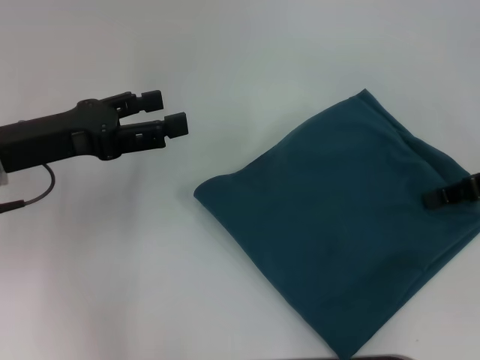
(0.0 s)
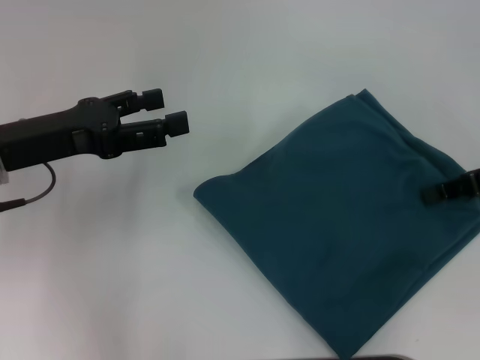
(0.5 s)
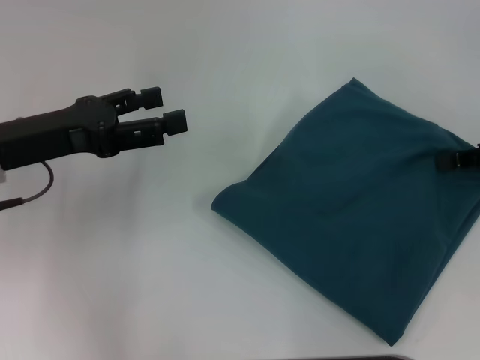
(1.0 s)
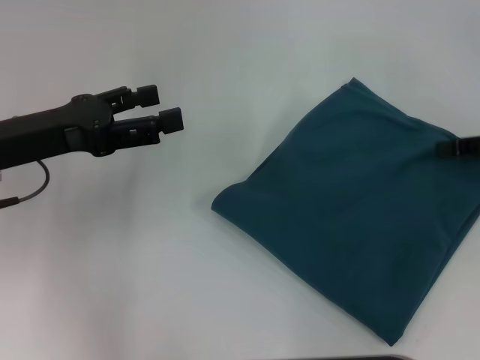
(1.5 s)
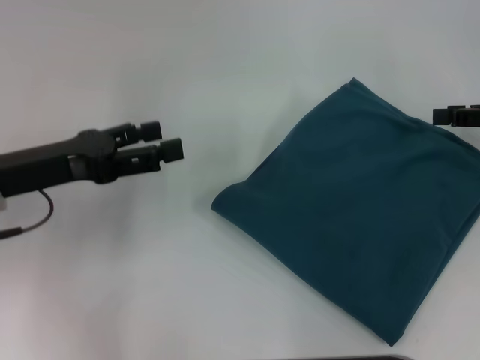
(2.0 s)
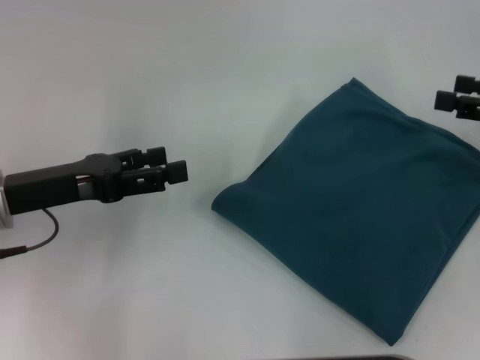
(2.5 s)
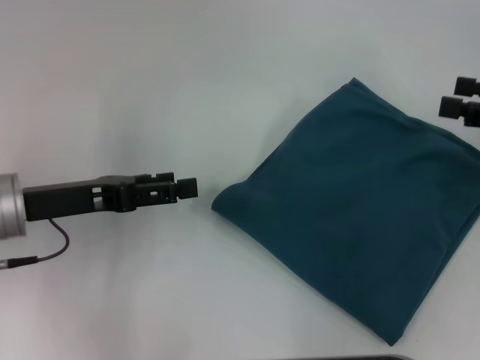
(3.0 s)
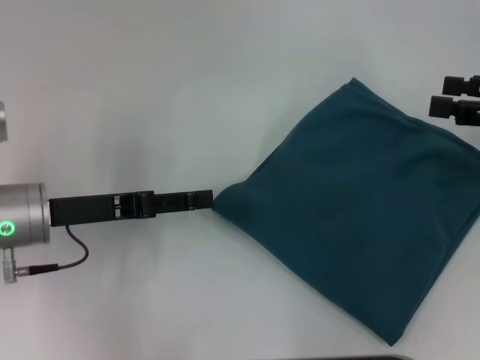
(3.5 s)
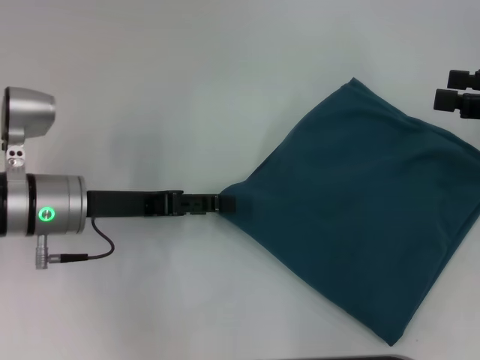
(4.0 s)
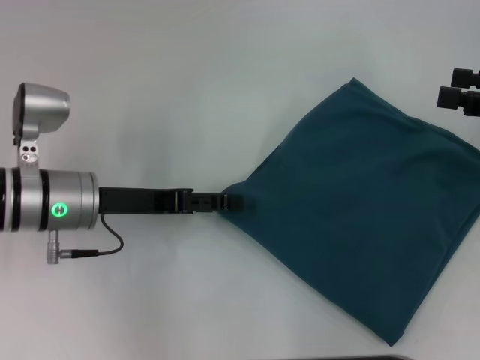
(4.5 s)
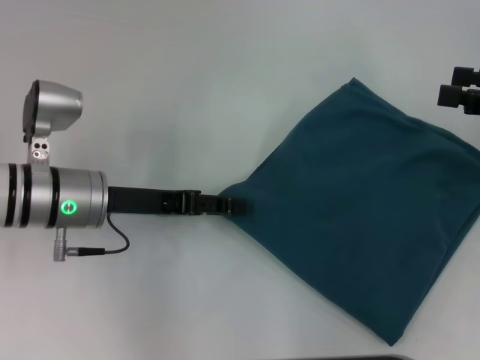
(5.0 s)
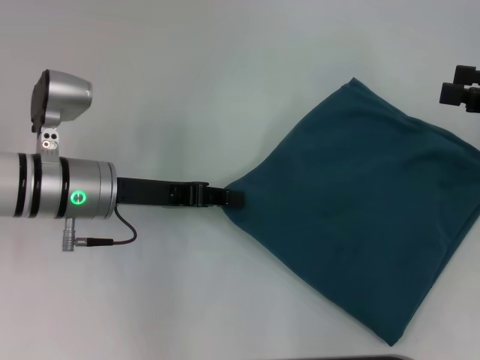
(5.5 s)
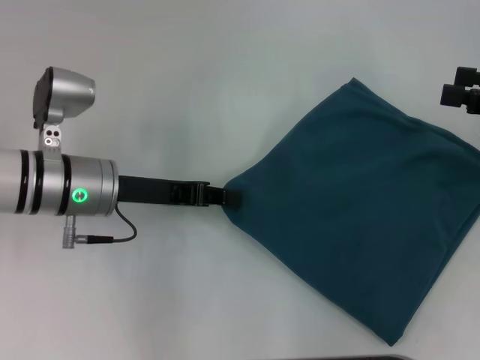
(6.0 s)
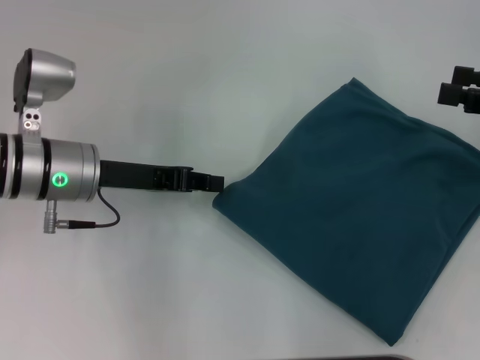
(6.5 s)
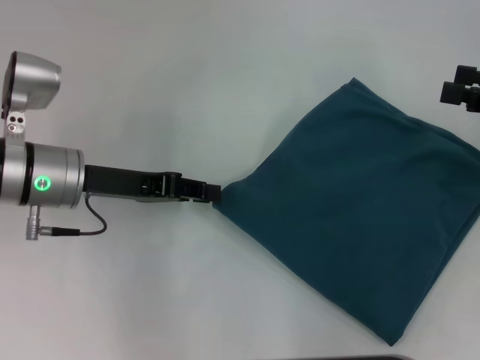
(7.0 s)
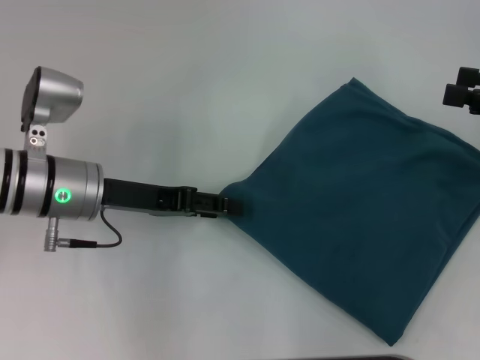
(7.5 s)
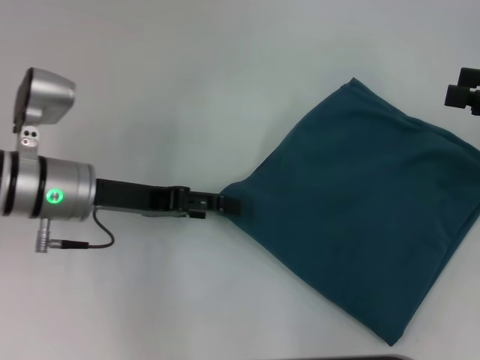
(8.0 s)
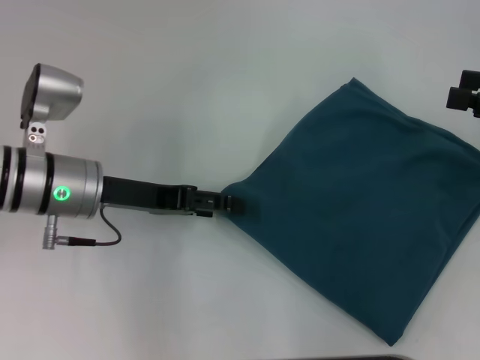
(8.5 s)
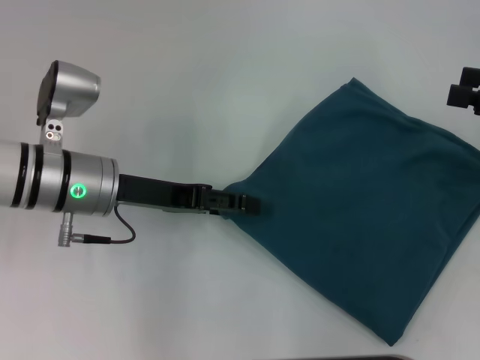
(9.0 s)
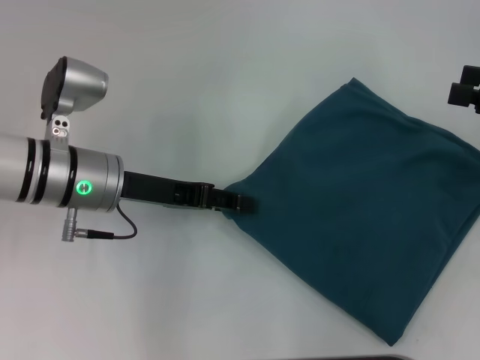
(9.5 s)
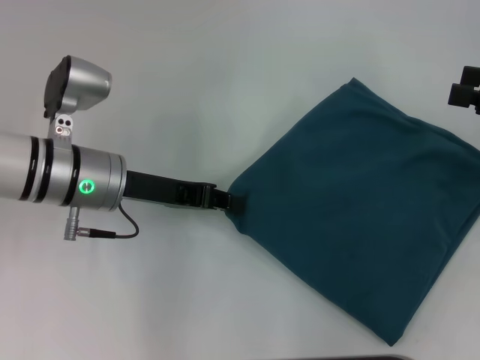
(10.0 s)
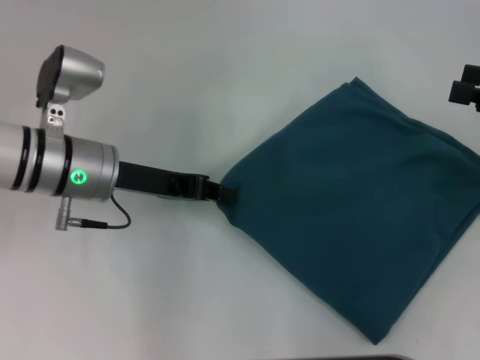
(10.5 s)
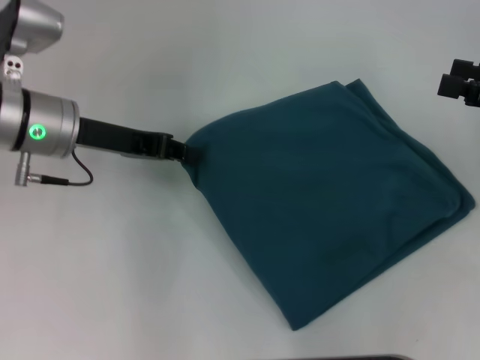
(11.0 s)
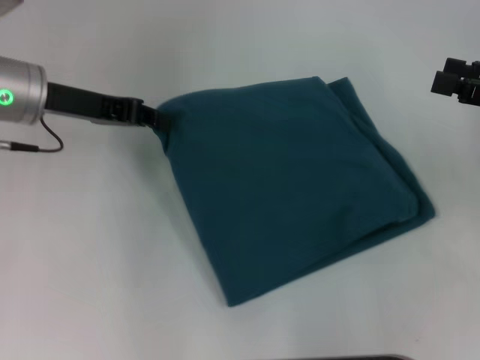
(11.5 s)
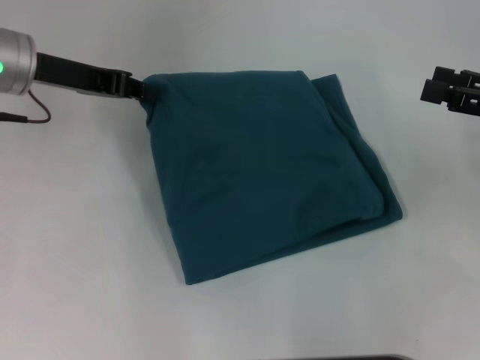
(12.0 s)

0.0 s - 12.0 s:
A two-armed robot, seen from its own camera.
2.0 s - 4.0 s: The left gripper moves to the right, about 5 cm; the right gripper opens up.
4.0 s - 6.0 s: The left gripper closes its fingers.
6.0 s - 8.0 s: The left gripper opens.
8.0 s - 10.0 s: The left gripper closes.
10.0 s - 12.0 s: The left gripper shifts roughly 15 cm forward, upward and to the left.

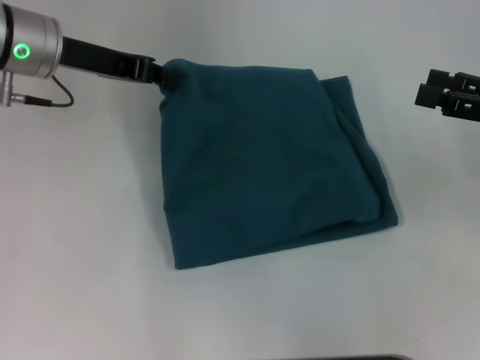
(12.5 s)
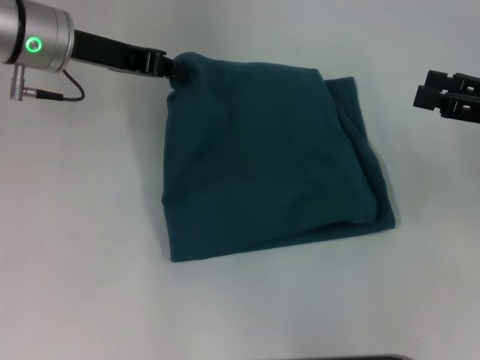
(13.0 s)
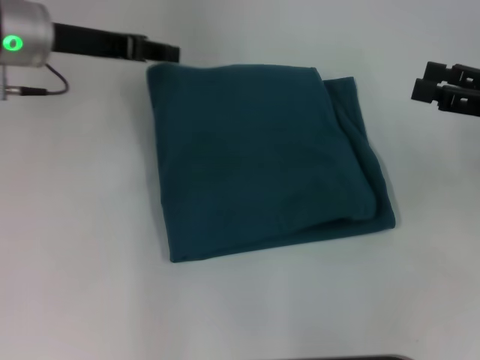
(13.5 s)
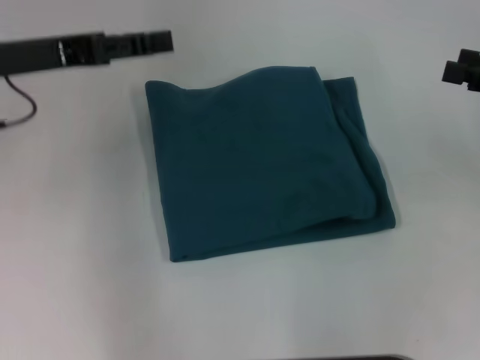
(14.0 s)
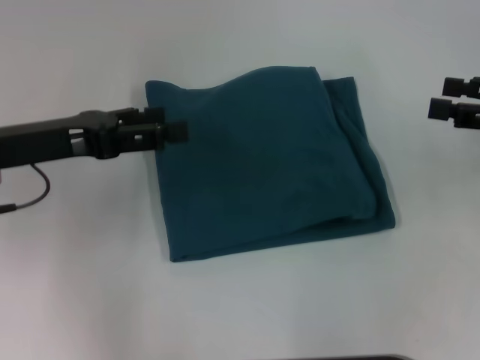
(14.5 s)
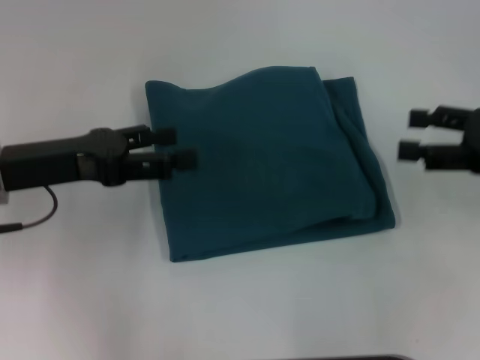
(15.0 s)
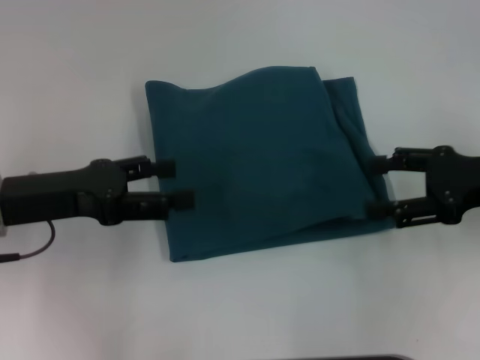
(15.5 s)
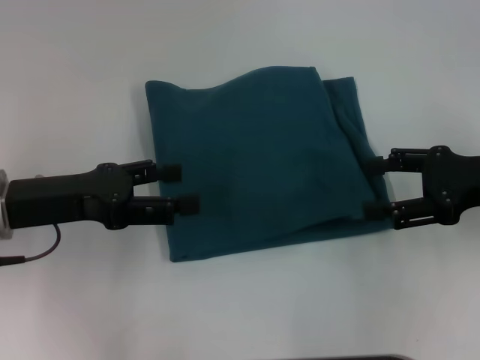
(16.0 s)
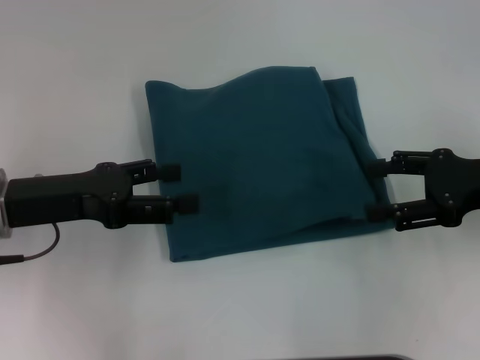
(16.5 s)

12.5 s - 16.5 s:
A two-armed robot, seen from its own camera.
12.5 s - 14.5 s: The left gripper moves backward, about 10 cm, and opens up.
14.5 s - 16.5 s: The right gripper shifts about 5 cm to the left.

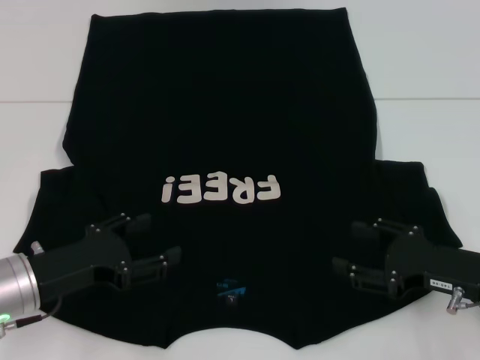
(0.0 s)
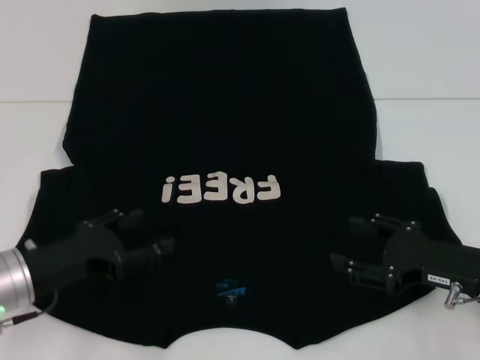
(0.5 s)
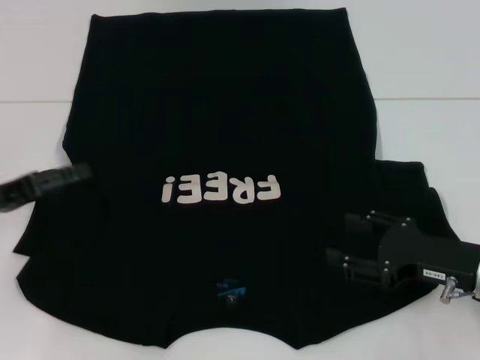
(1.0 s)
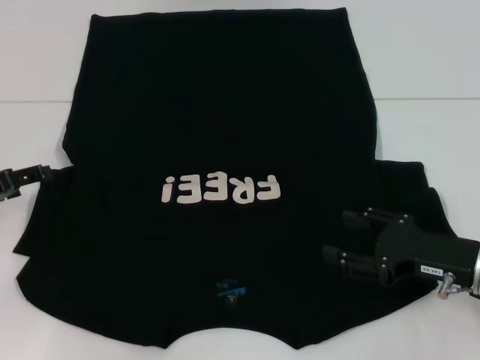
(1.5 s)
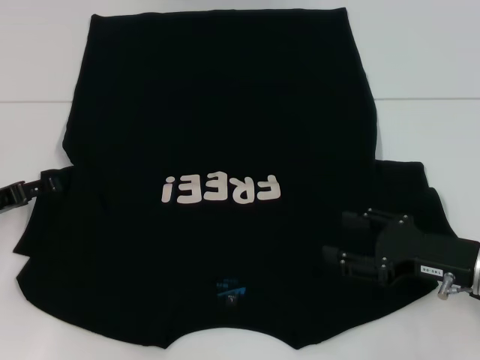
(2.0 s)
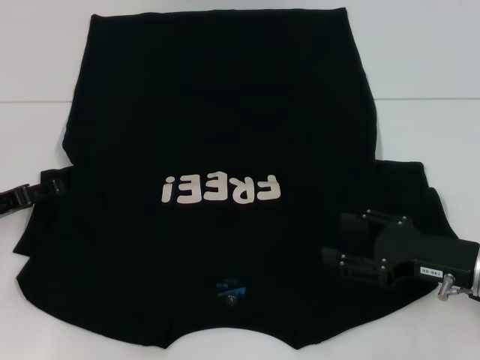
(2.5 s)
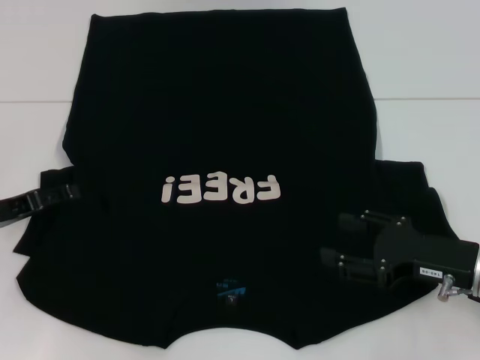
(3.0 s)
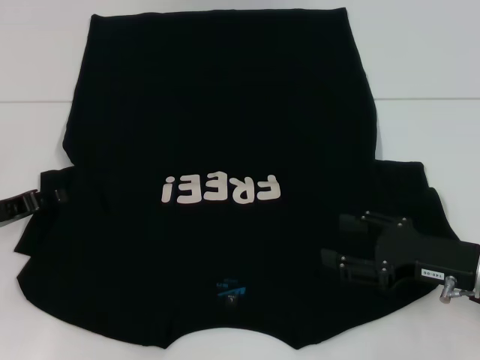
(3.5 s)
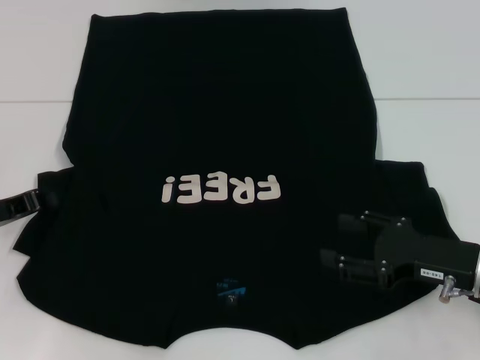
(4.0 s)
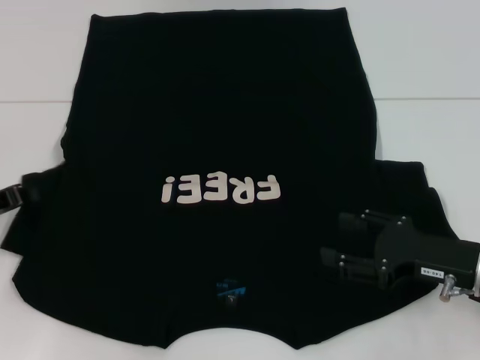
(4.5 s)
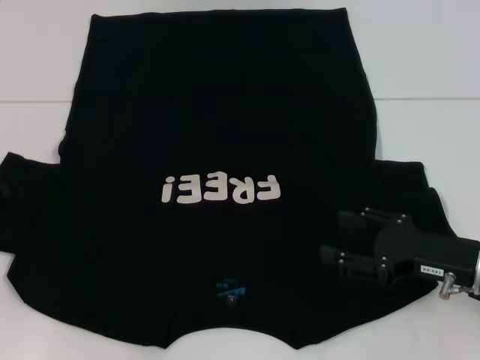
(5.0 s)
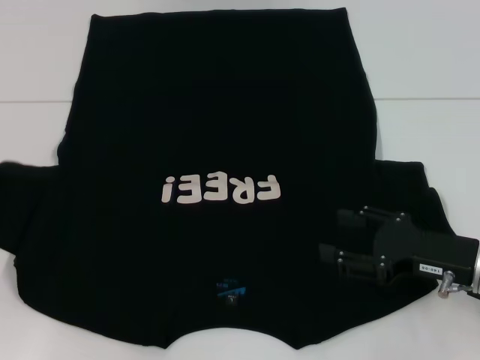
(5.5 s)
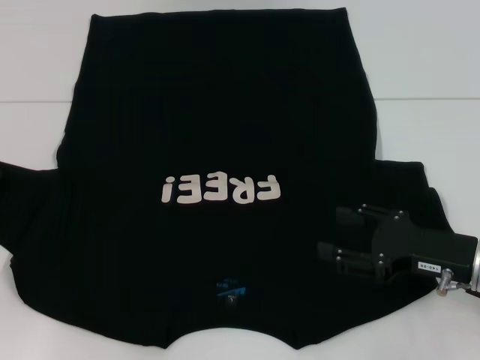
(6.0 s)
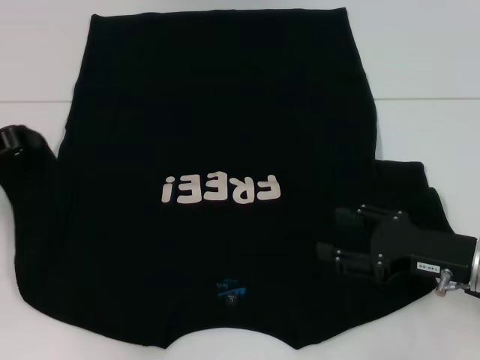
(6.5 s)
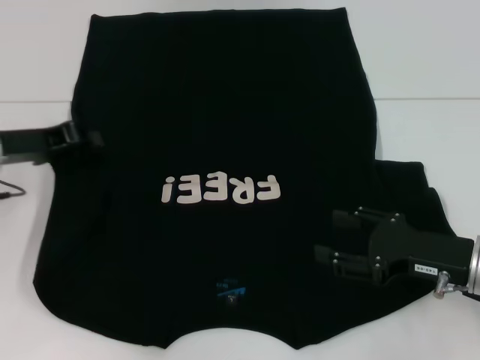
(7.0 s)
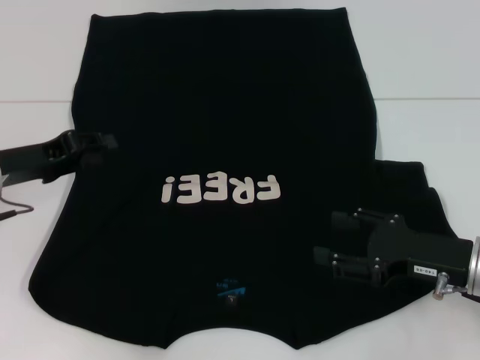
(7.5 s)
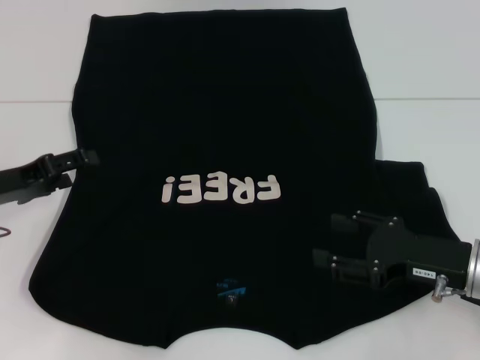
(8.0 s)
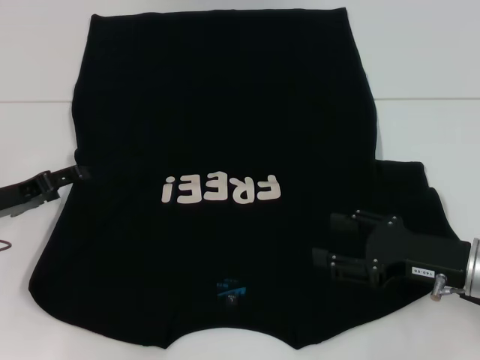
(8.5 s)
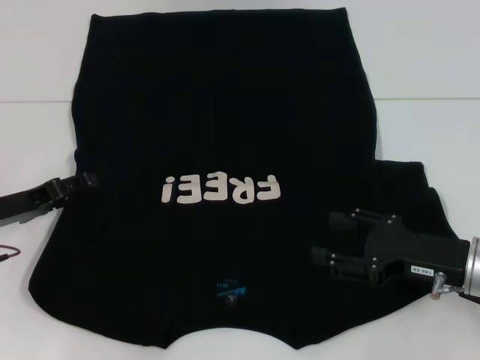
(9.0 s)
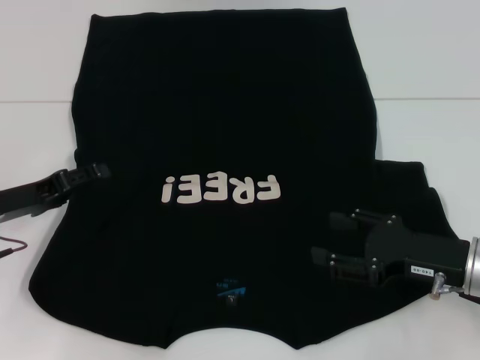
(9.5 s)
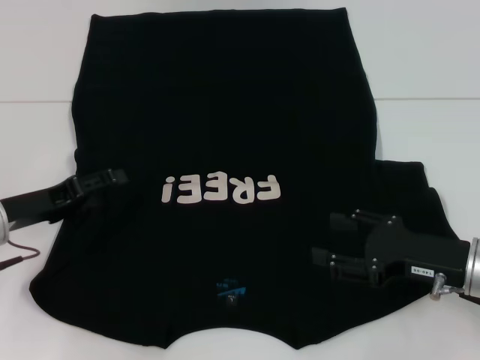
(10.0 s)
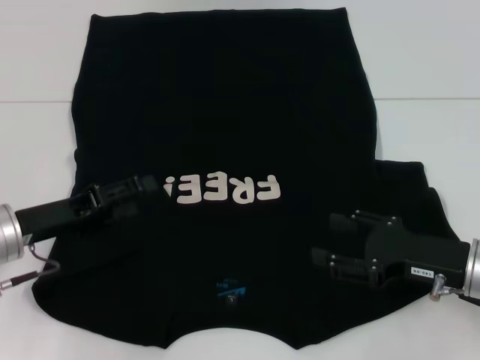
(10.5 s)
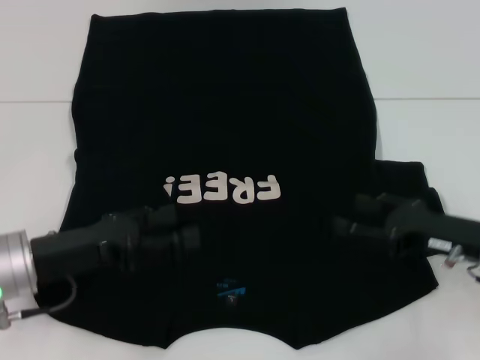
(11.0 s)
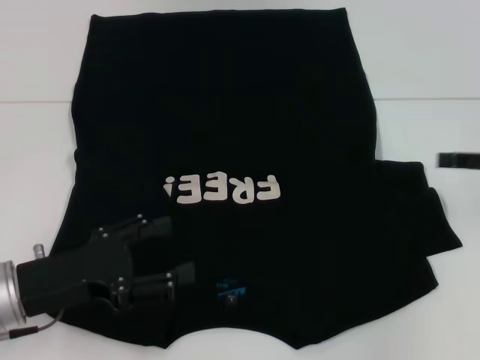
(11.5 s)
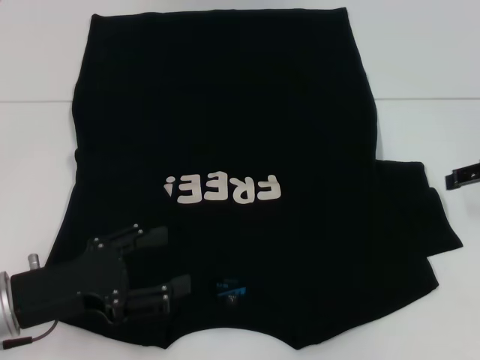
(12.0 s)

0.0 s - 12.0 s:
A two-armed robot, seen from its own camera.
Step, 0.0 s - 7.5 s: Fold the bottom left sleeve with your left hand.
0.0 s - 2.0 s: The left gripper moves to the left and forward, approximately 10 cm.
2.0 s - 4.0 s: The left gripper closes up.
4.0 s - 6.0 s: The left gripper moves about 5 cm.
6.0 s - 8.0 s: The left gripper heads to the right, covering roughly 5 cm, and opens.
8.0 s - 10.0 s: The grippers stay close to where they were, moving slightly.
10.0 s - 12.0 s: The right gripper heads upward, forward and to the right, covering some 15 cm. Meanwhile the left gripper moves backward, roughly 10 cm.
